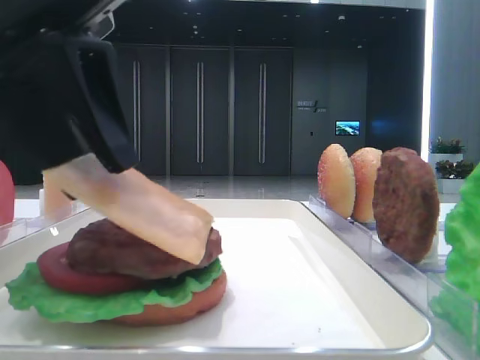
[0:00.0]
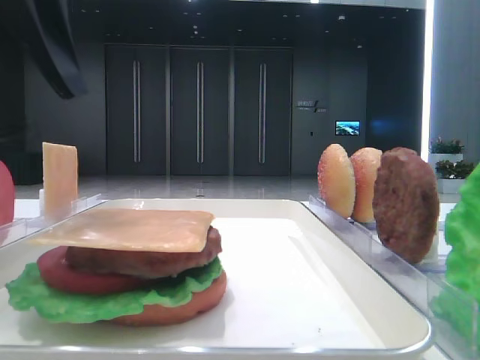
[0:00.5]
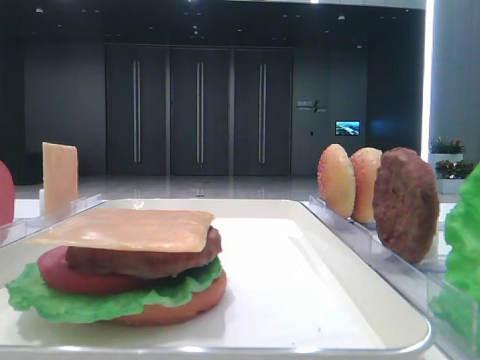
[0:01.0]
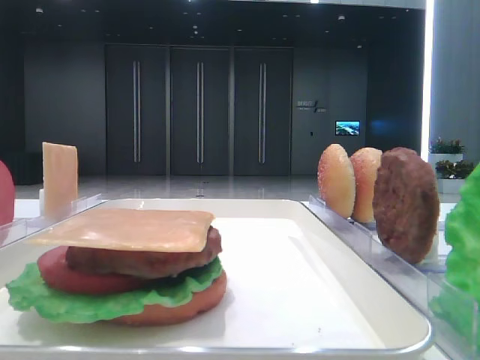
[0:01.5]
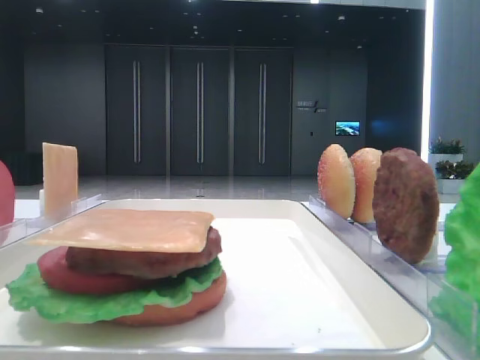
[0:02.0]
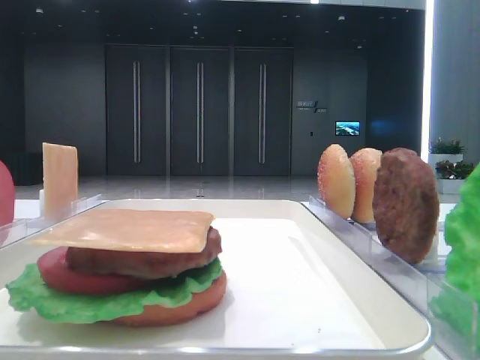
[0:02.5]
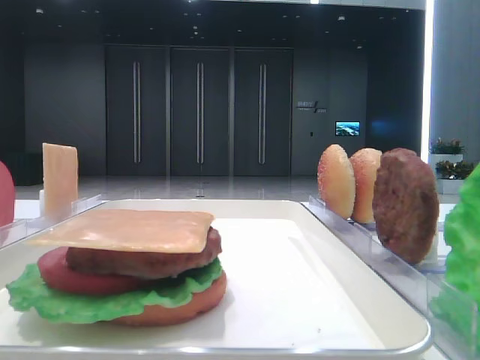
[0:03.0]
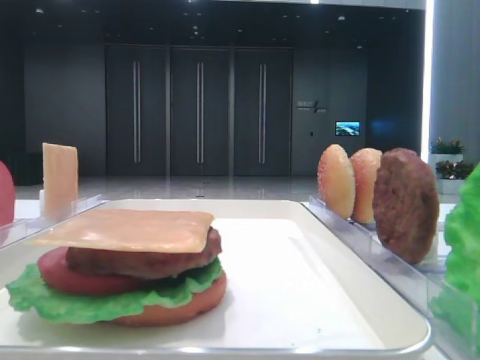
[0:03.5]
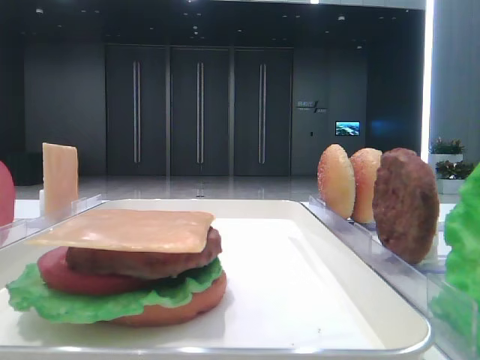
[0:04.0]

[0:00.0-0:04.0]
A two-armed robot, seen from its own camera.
0:00.0 to 0:02.0: The left gripper is displaced to the left and upward by roughly 25 cm, and opens up.
